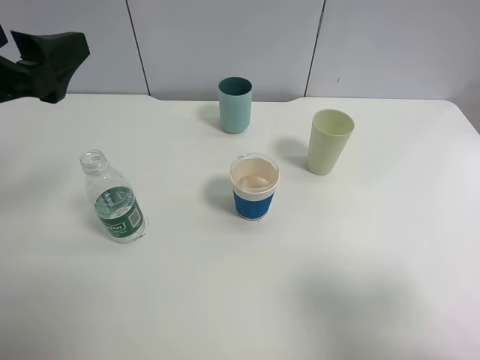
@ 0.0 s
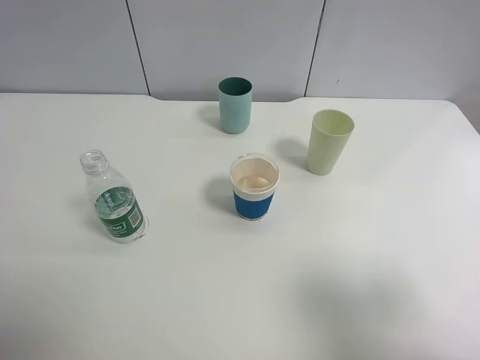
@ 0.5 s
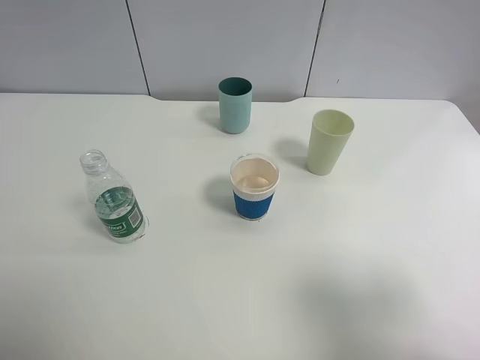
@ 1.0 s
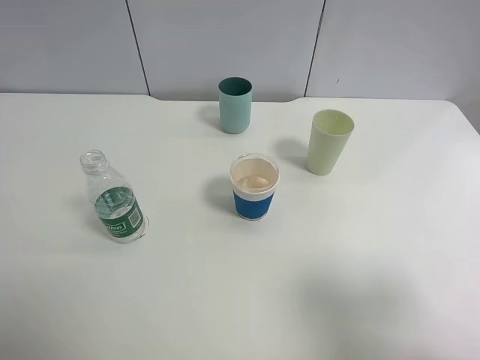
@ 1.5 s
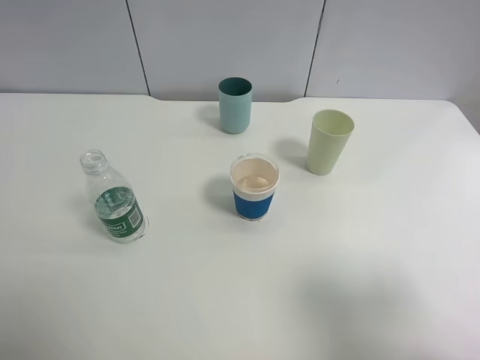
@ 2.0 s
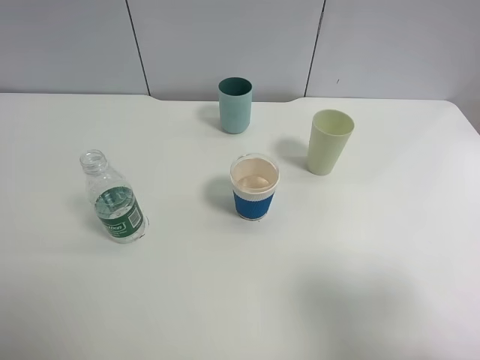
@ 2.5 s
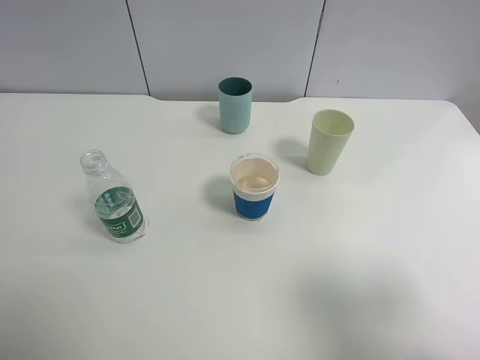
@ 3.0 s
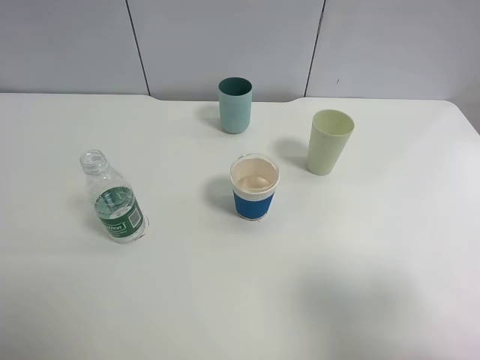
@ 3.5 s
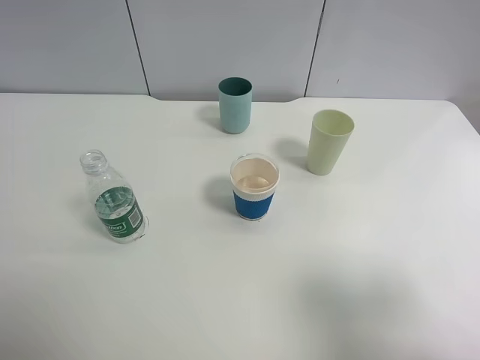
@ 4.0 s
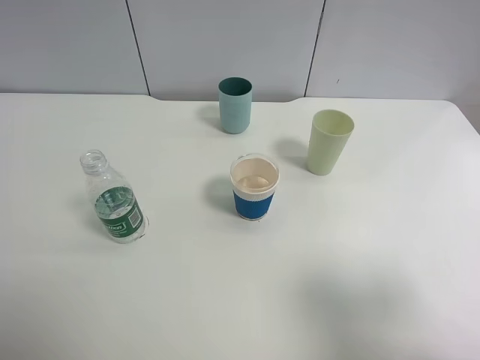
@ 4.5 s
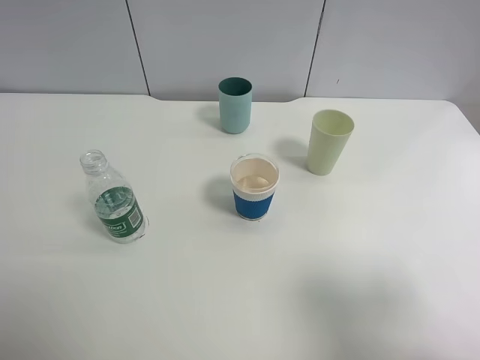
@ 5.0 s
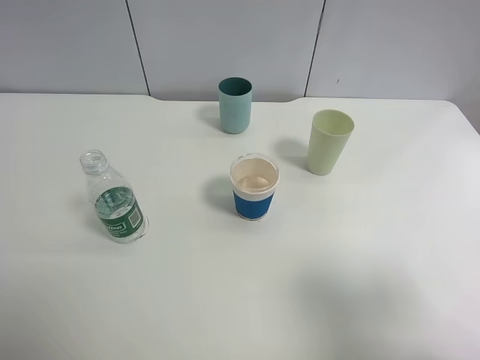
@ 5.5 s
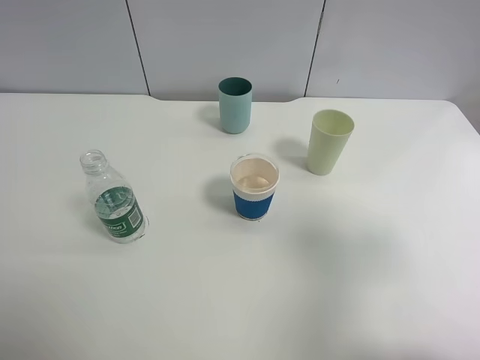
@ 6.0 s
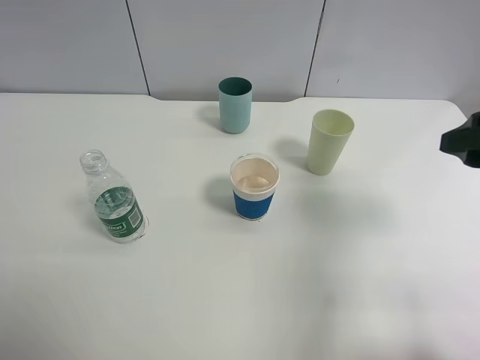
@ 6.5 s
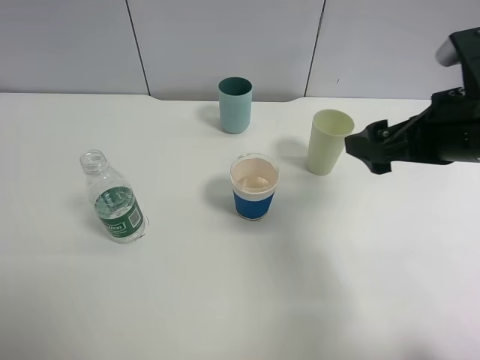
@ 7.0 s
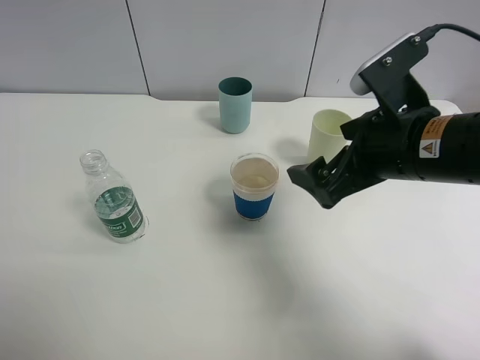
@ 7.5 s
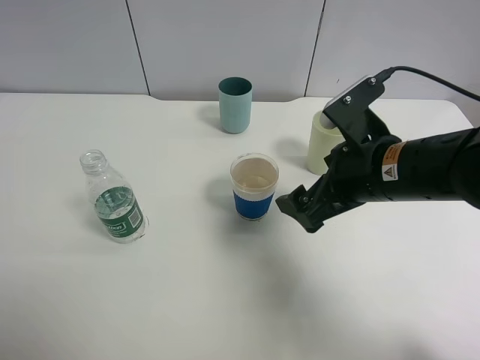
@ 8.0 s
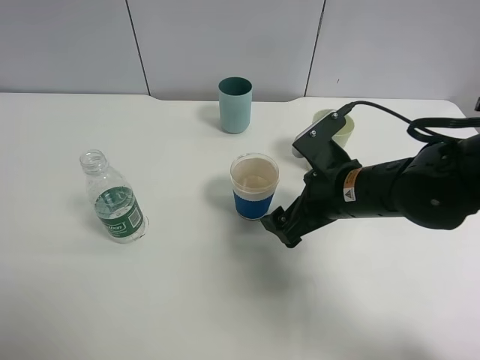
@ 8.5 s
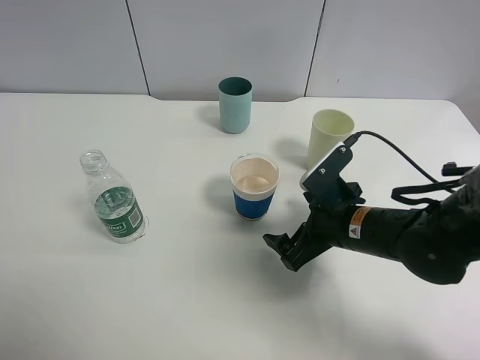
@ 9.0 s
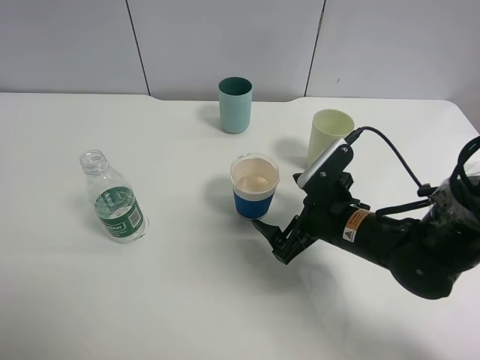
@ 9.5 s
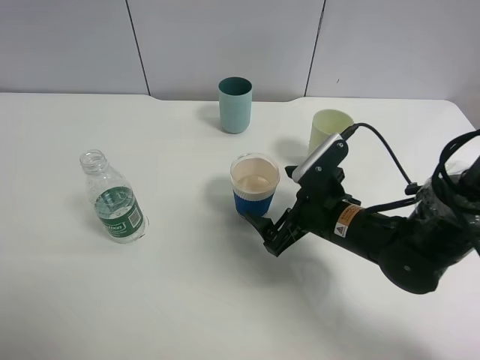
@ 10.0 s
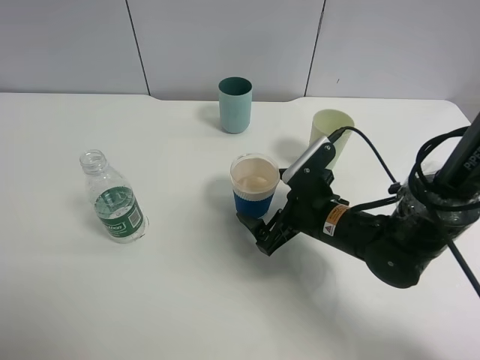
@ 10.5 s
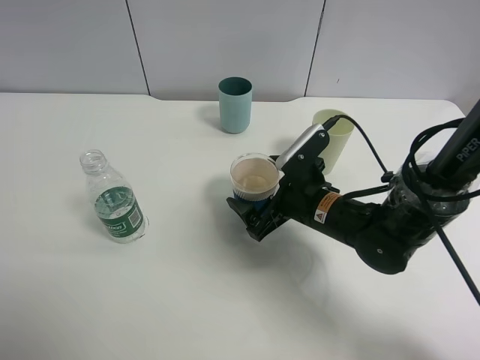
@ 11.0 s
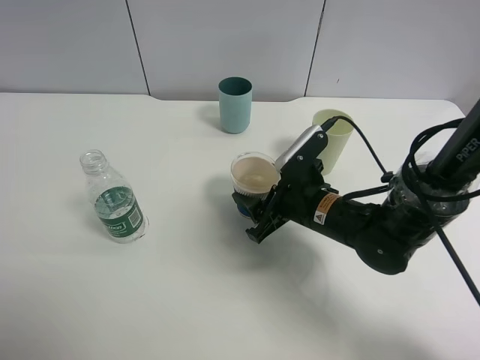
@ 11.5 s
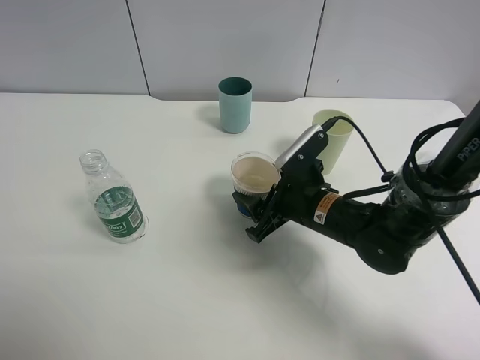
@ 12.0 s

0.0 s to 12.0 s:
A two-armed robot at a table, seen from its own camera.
Task of the whole recording: use a clamp to hold the bottle of the drink, pour the beverage into a random cup, then clamp the cup containing the drink and pour the drink into another random cup.
0.0 to 2.0 s: The left gripper travels backward by roughly 20 cm.
4.0 to 6.0 s: The right gripper travels forward by about 10 cm.
6.0 to 8.0 s: The right gripper shifts roughly 20 cm to the left, downward and forward.
8.0 to 10.0 s: The right gripper is displaced downward by about 10 cm.
10.0 to 12.0 s: The right gripper closes.

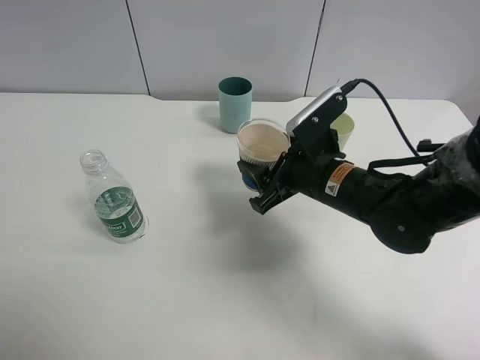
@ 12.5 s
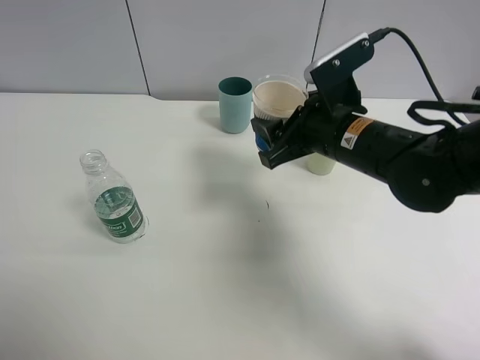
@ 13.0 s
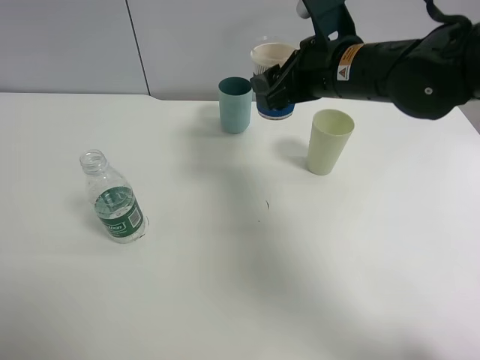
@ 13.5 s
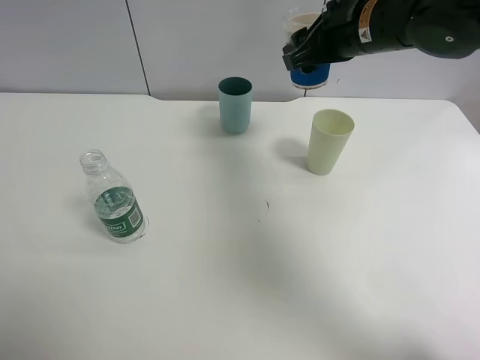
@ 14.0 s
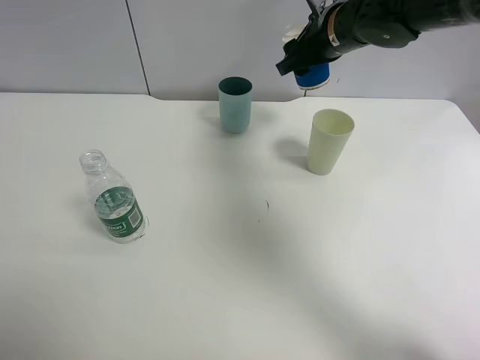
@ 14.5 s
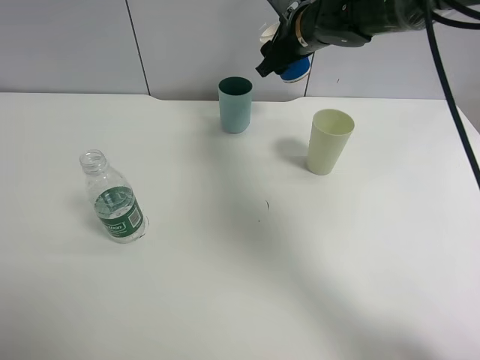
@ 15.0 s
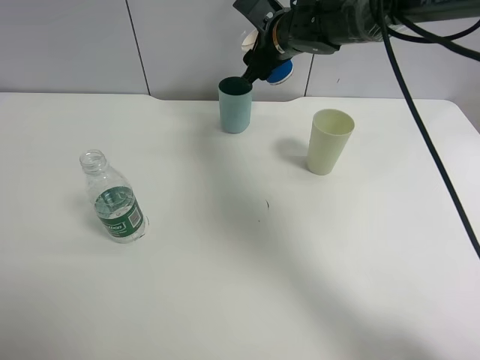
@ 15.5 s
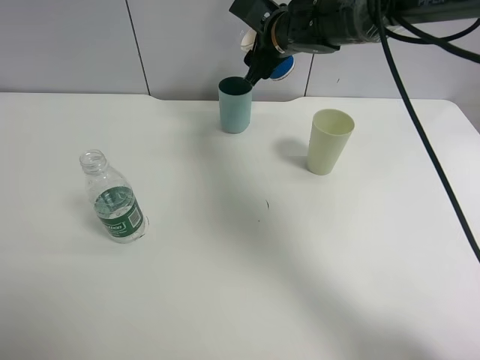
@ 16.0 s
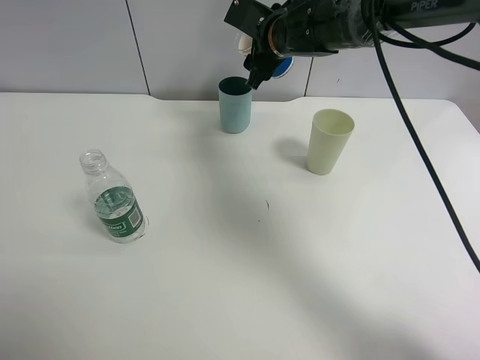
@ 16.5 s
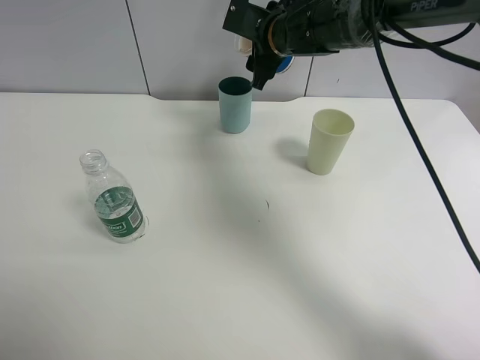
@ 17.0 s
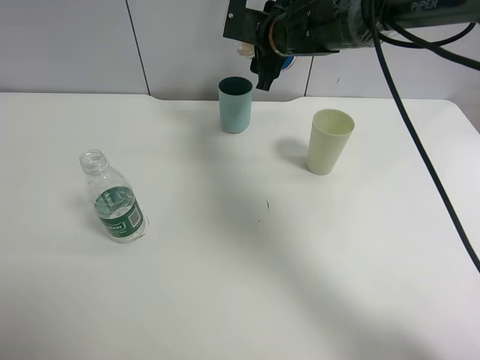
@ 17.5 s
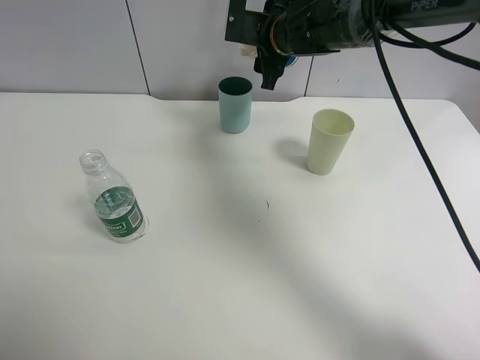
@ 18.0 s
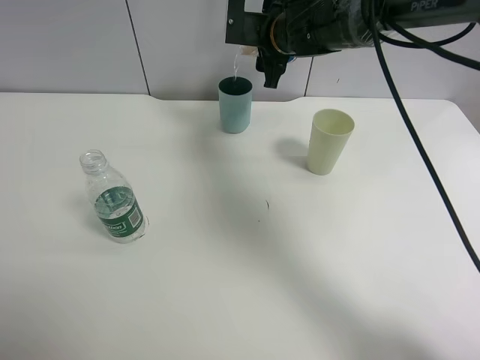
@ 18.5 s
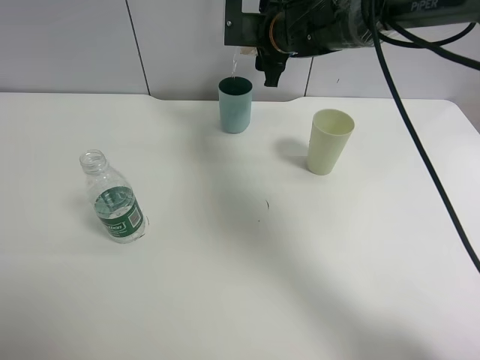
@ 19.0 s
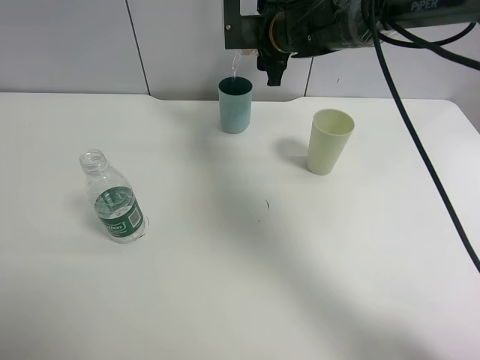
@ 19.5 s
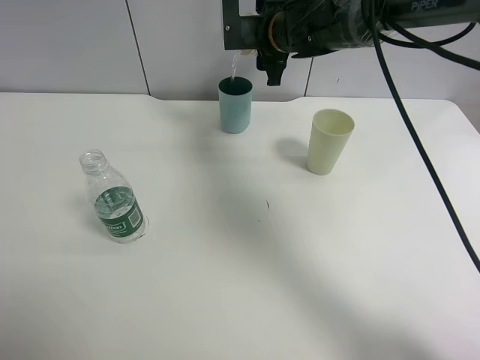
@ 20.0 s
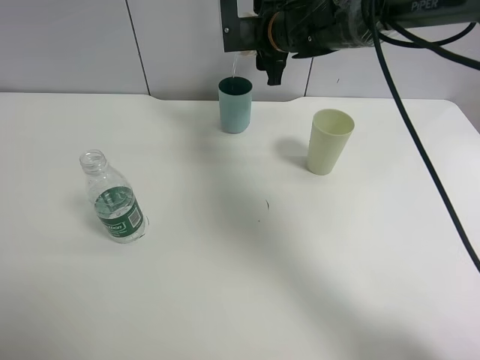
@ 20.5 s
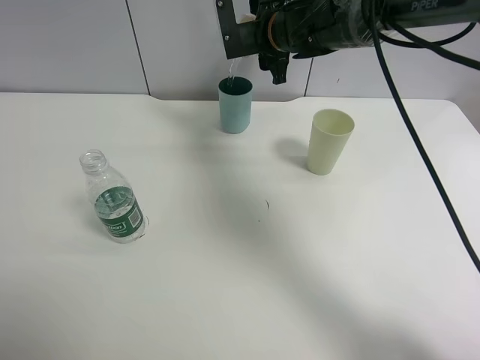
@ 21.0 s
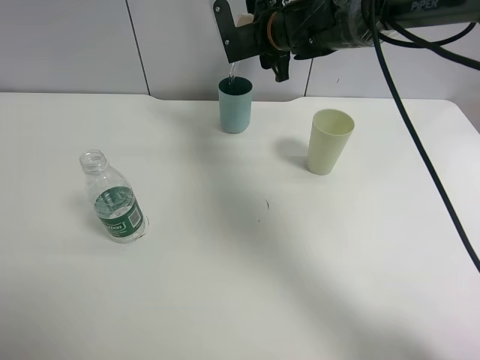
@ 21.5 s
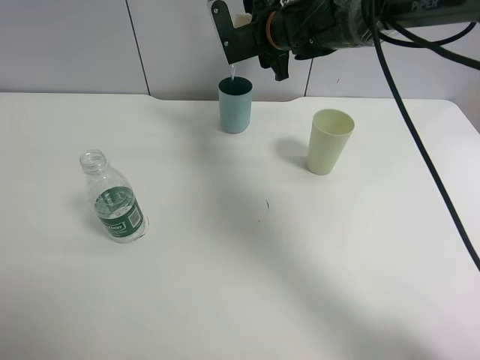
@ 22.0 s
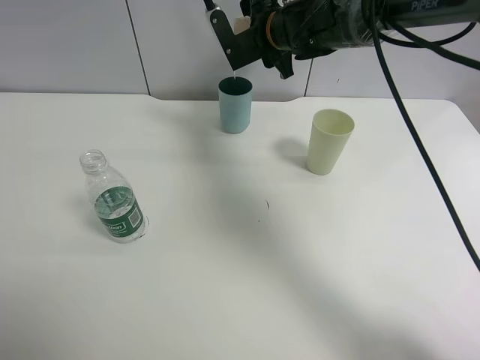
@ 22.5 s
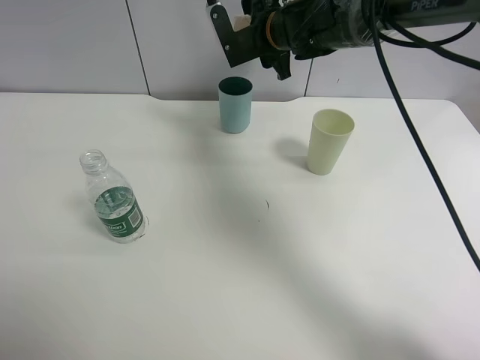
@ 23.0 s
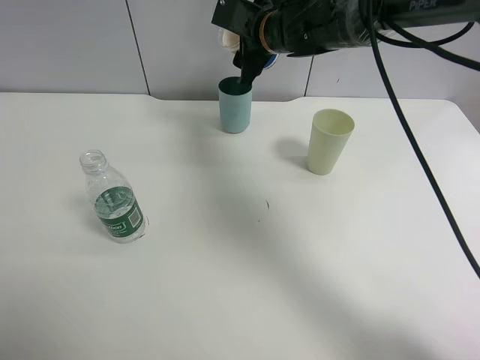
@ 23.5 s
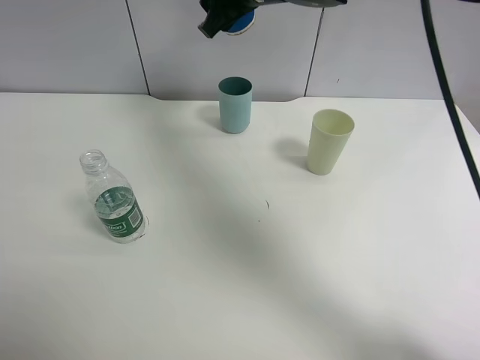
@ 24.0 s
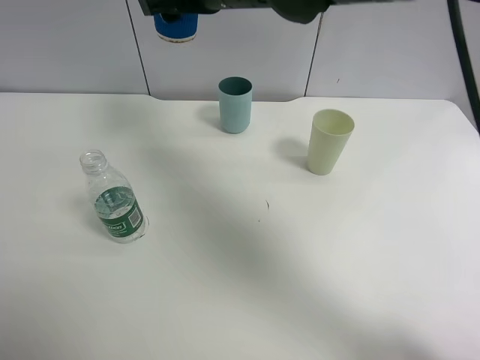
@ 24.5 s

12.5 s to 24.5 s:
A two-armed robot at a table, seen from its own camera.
Task of the whole recording: use a clamp to hold the bottle of the drink, pour the beverage into a random cup, then clamp the cup containing the drink and pour the drink into another random cup.
Step, 12.5 to 23.0 s: Pour the drink into the blue plastic cup with right gripper.
12.5 to 14.5 s: The right gripper shifts approximately 20 cm forward and upward.
14.5 to 16.5 s: The right gripper heads to the left, covering roughly 5 cm.
22.5 to 24.5 s: The right gripper is displaced backward, upward and to the left by some 15 cm.

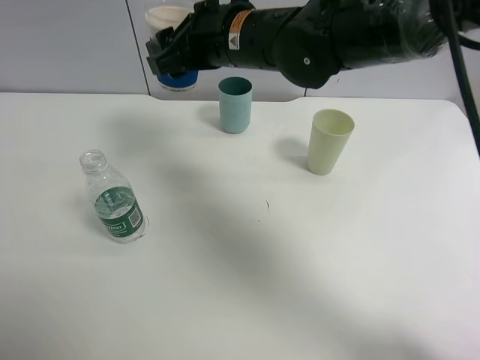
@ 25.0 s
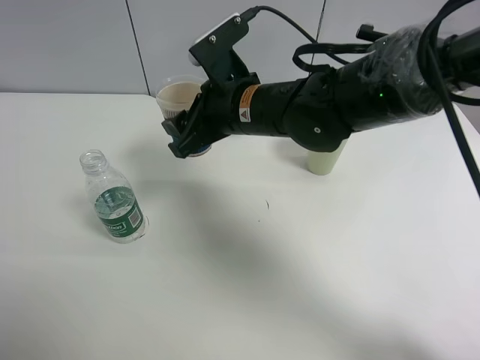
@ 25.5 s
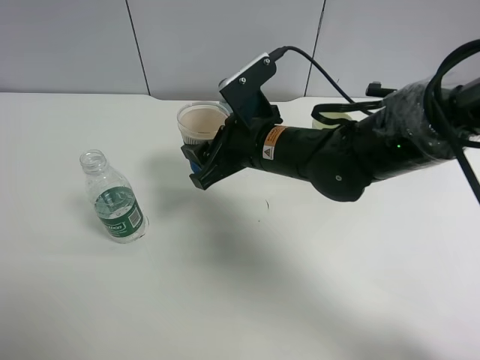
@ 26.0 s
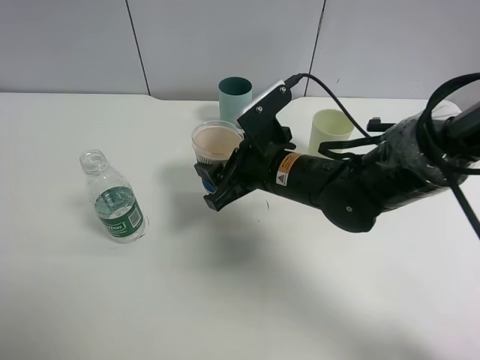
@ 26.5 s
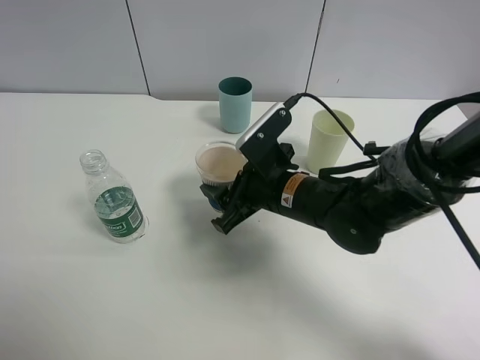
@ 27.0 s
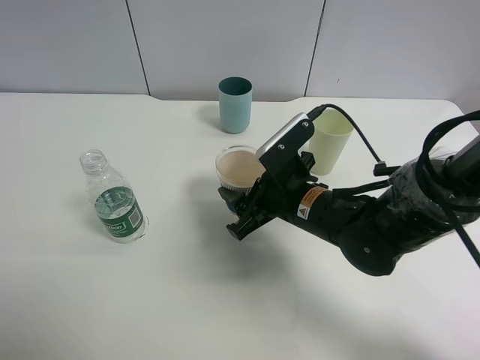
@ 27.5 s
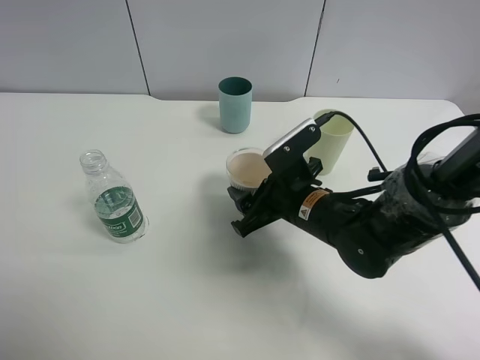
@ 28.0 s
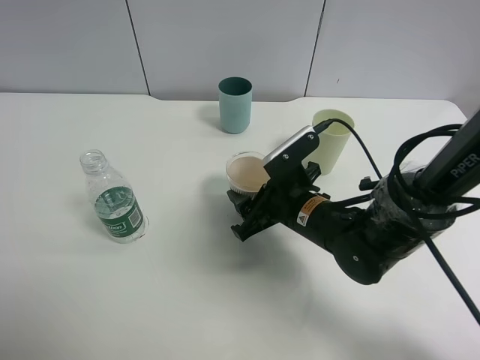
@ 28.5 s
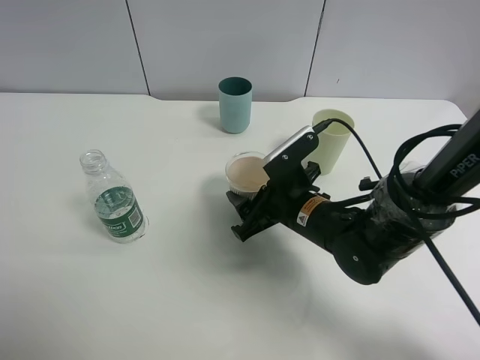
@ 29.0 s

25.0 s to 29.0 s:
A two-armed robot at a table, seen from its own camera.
Task of the whole recording: use a clamp to hold the bottle of the drink, pour the beverage into a random cup, then clamp the cup containing the drink and pour the drink into another random cup.
25.0 to 27.0 s: The right gripper shifts approximately 20 cm downward, backward and to the right.
27.0 to 29.0 s: The grippers move only a little.
